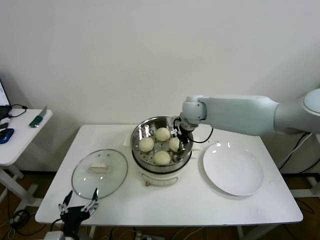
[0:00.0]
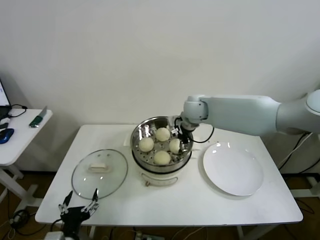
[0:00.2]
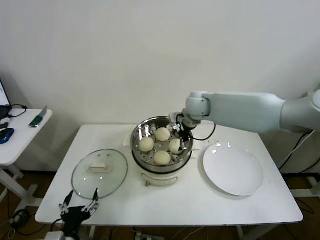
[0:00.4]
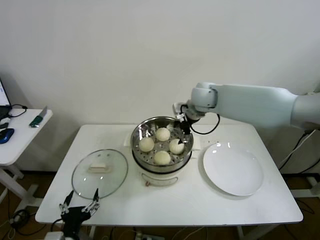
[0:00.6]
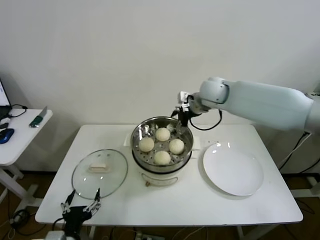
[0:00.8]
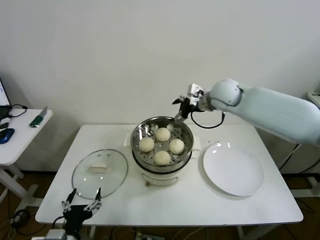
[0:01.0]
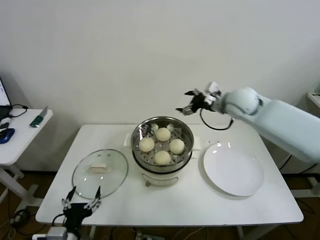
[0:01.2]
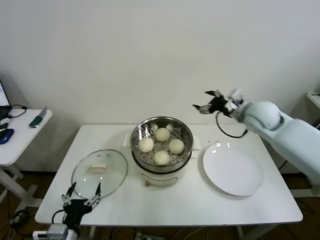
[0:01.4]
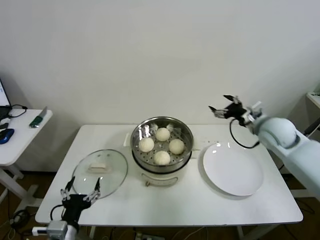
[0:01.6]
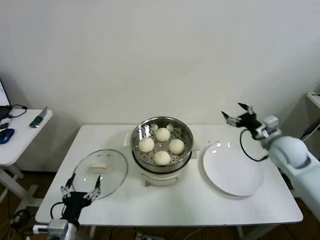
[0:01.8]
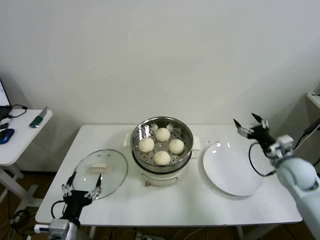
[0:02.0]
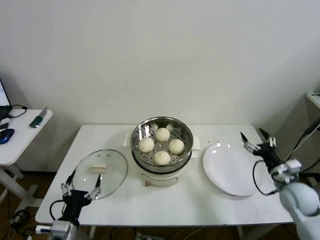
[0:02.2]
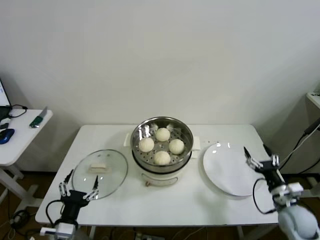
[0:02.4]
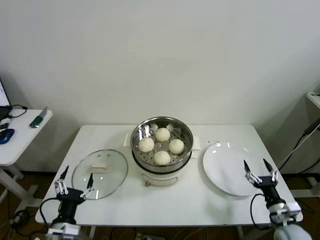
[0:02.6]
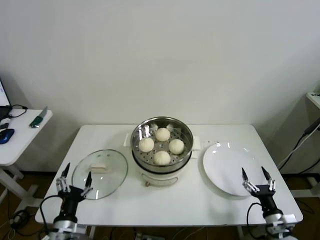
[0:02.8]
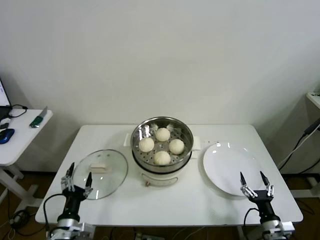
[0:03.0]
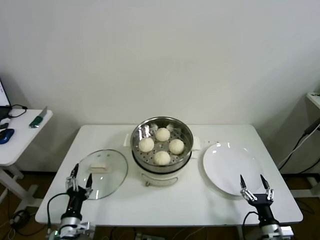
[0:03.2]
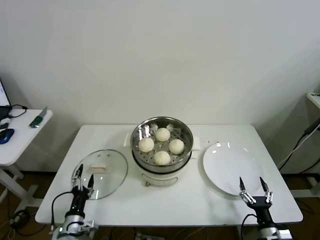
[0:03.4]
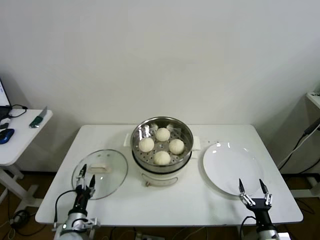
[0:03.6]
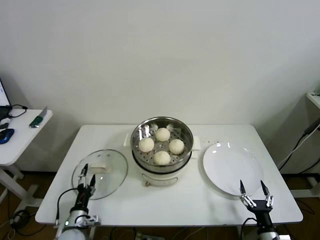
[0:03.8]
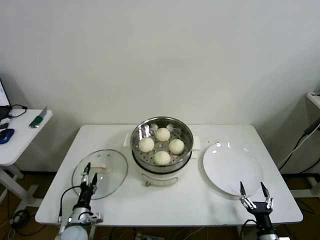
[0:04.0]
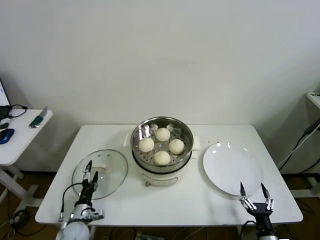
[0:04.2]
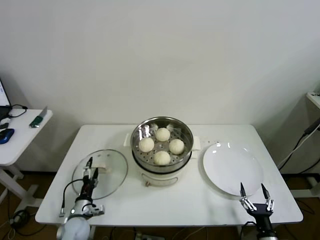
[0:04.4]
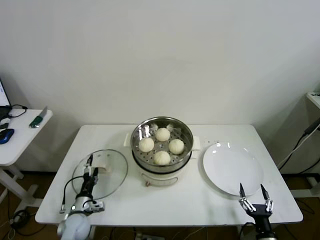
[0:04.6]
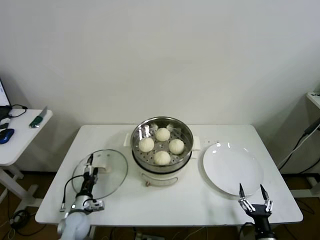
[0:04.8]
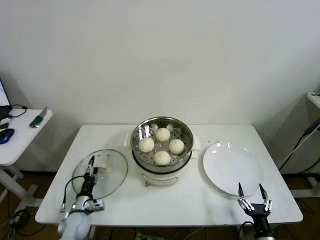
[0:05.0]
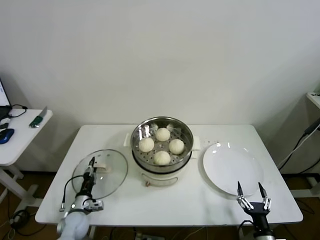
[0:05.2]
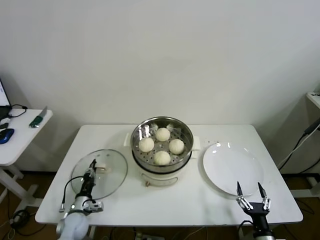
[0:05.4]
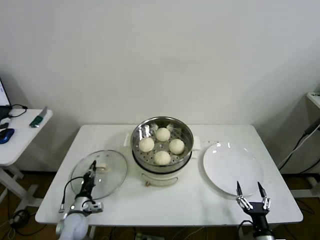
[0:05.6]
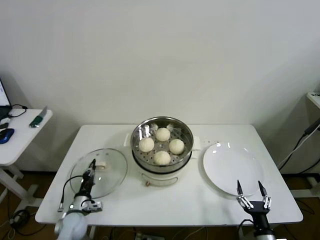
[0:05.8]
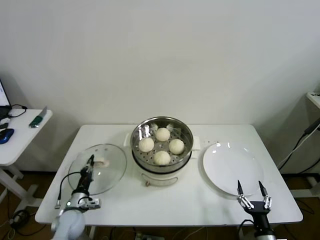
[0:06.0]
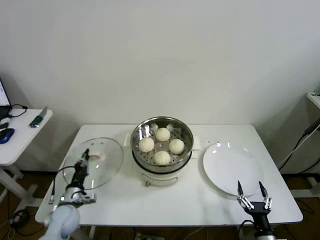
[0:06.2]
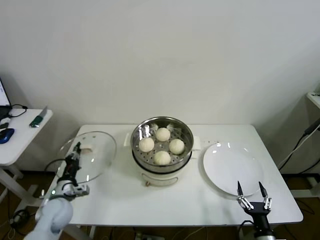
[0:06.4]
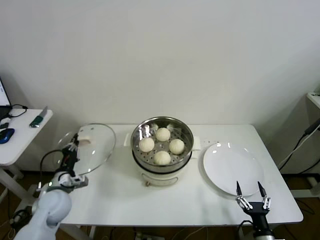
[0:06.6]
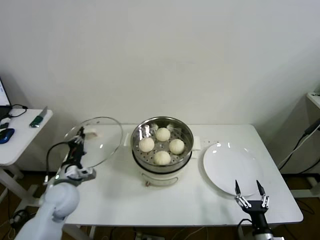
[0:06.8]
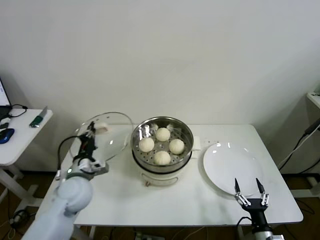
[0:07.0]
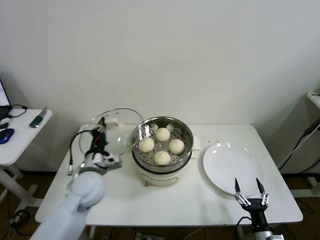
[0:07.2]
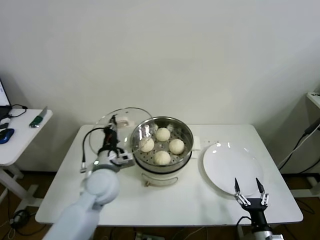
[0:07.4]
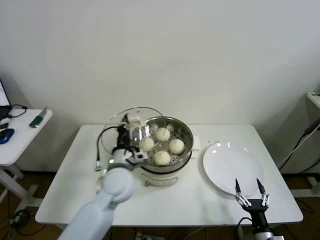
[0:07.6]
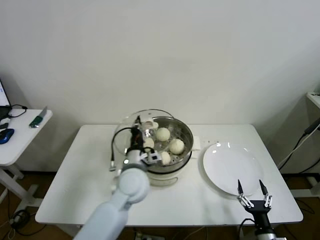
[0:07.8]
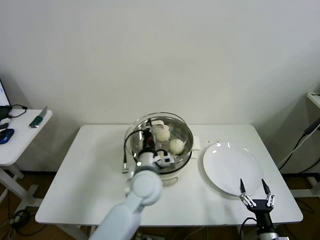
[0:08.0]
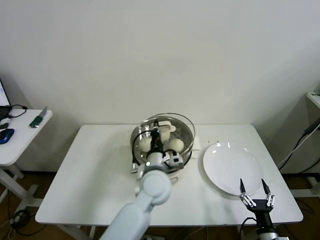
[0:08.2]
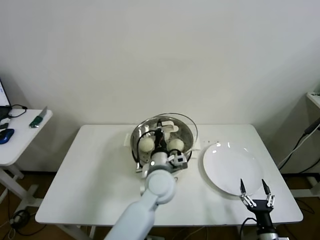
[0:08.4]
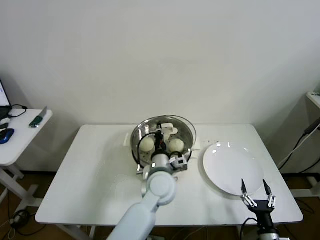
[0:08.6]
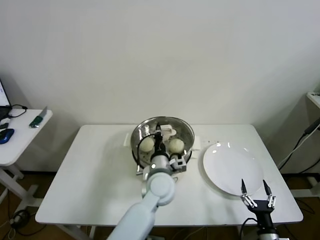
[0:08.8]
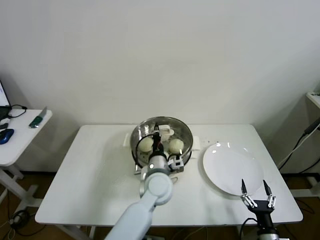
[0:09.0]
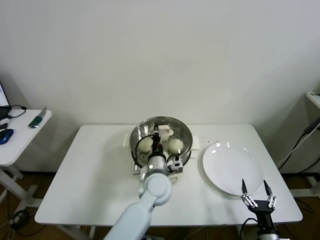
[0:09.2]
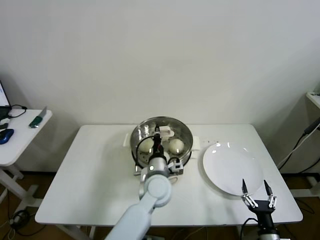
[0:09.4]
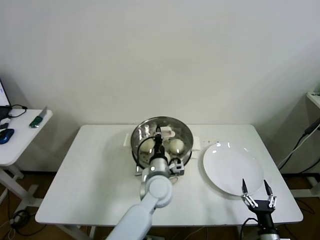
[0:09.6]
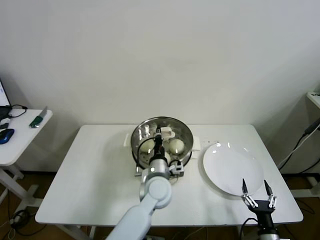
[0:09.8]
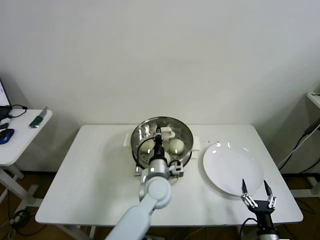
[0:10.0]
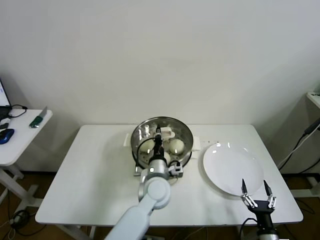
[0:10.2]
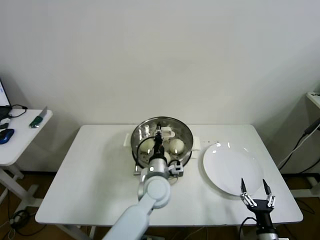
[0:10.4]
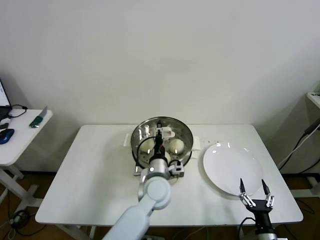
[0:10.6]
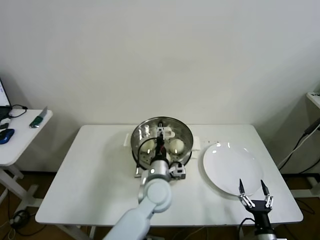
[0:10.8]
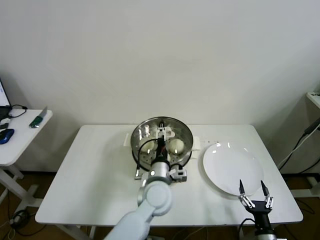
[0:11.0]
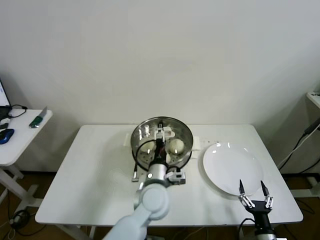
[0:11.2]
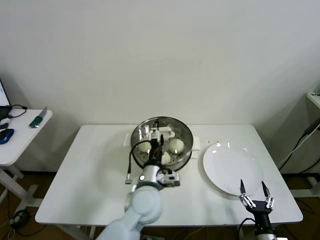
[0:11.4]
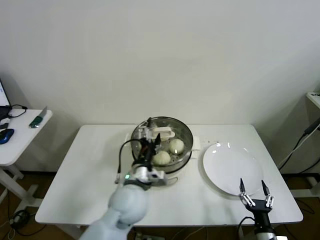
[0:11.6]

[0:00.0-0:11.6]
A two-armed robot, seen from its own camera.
Step, 0:00.4 to 0:05.4: Grasp the pot lid with left gripper.
Step, 0:05.6 to 0:10.4: Place the pot lid on the steamer with left gripper.
0:00.0 to 0:01.4: The right gripper is displaced to the right by about 20 cm, and opens.
0:01.4 to 0:02.8: The left gripper ends up roughly 5 cm from where it was; the right gripper travels downward and backward by about 40 cm.
0:02.8 to 0:04.4: The right gripper goes roughly 5 cm backward. The left gripper travels downward and forward by roughly 15 cm.
0:04.4 to 0:05.8: The left gripper closes up.
0:05.8 to 0:07.2: The left gripper goes approximately 25 cm upward and to the right.
0:07.2 to 0:08.8: The left gripper heads to the right, covering roughly 20 cm.
0:08.8 to 0:10.2: There are only small adjustments of the grippers.
0:10.2 to 0:11.6: The left gripper moves upward, to the left and backward, about 10 cm, and opens.

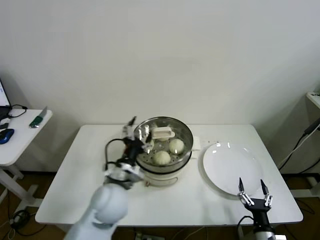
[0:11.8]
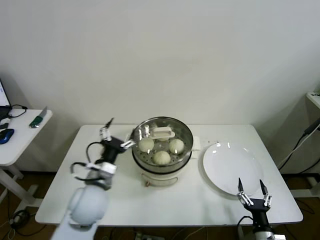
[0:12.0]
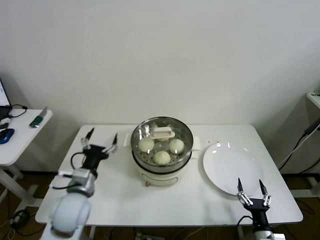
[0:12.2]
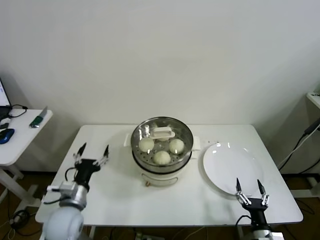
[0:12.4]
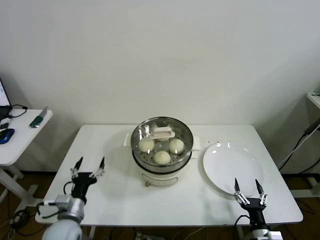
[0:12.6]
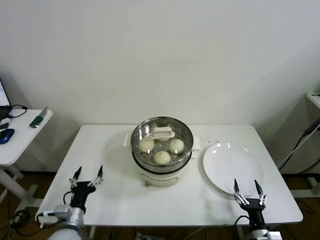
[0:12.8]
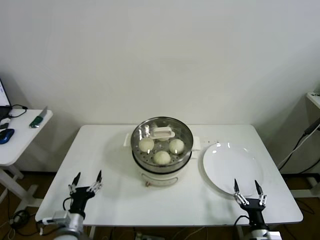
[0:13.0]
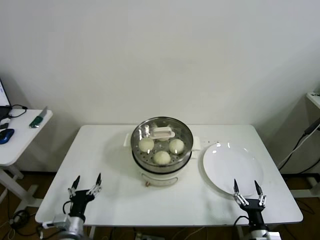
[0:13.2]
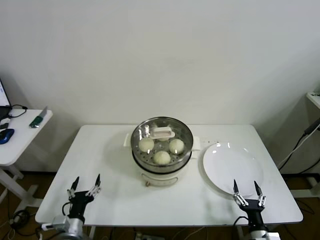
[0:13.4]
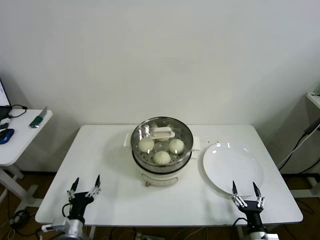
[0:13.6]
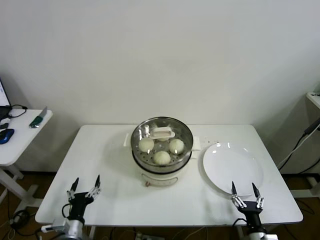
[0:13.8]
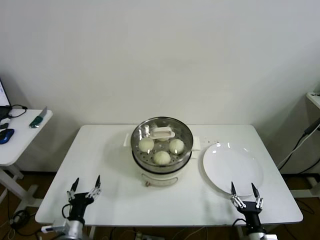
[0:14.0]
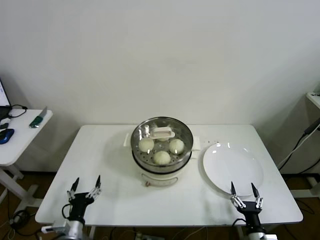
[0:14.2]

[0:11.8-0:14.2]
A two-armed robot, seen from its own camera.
0:11.8 to 0:13.0: The left gripper is displaced to the left, downward and backward by approximately 25 cm.
0:13.0 to 0:14.2: There are only small adjustments of the grippers.

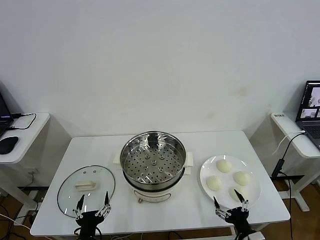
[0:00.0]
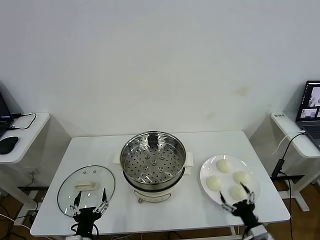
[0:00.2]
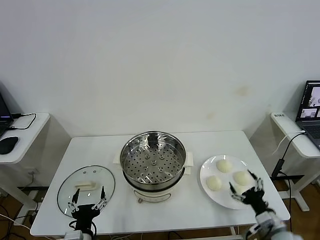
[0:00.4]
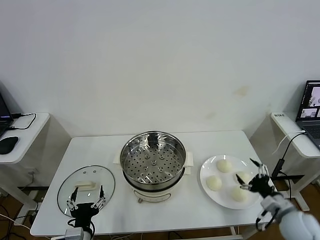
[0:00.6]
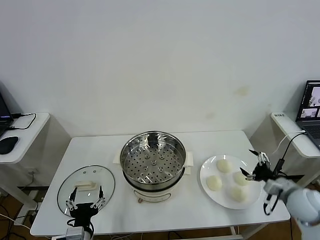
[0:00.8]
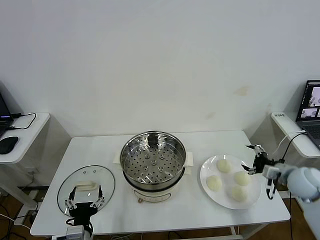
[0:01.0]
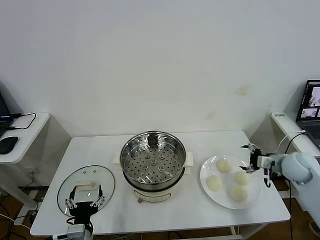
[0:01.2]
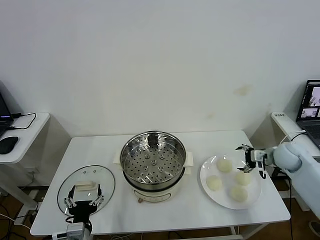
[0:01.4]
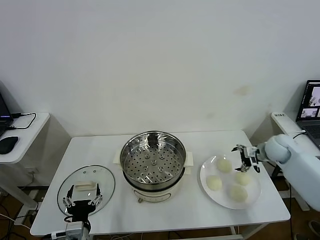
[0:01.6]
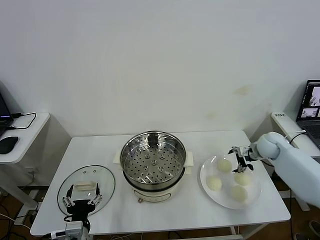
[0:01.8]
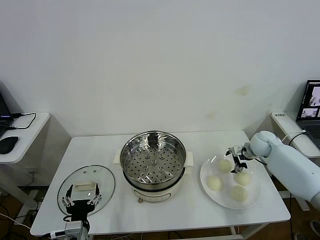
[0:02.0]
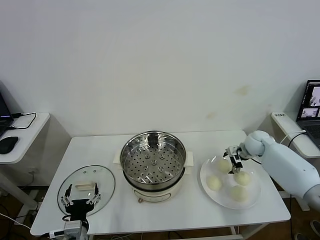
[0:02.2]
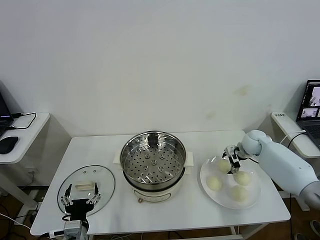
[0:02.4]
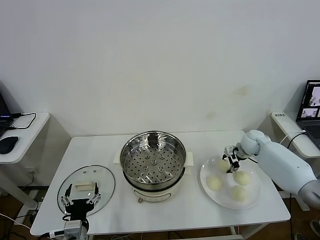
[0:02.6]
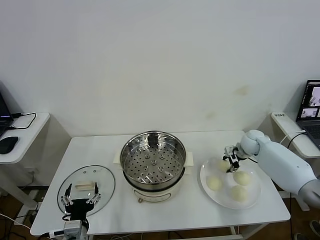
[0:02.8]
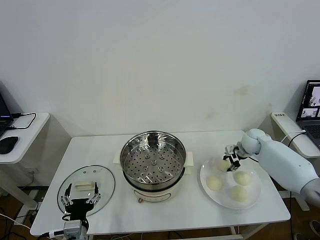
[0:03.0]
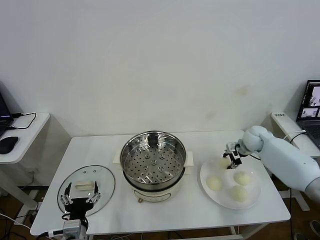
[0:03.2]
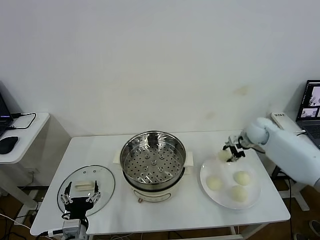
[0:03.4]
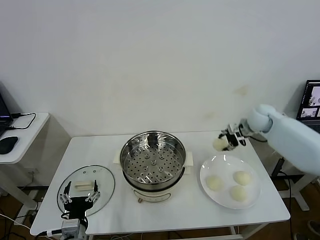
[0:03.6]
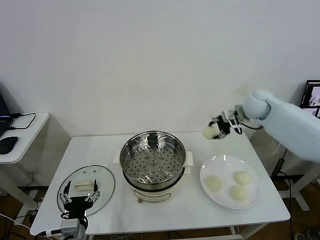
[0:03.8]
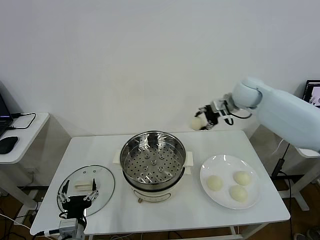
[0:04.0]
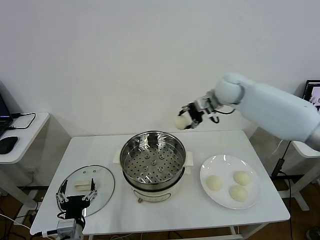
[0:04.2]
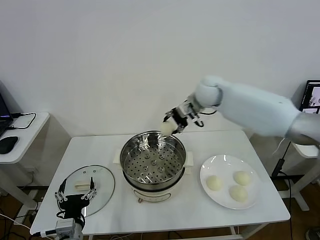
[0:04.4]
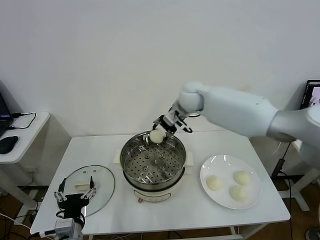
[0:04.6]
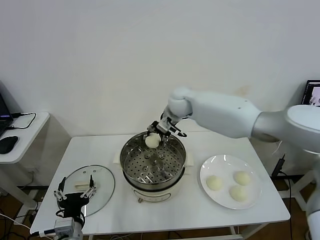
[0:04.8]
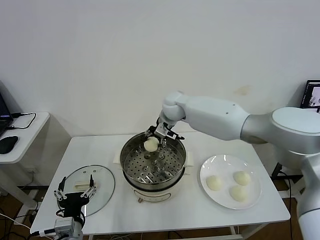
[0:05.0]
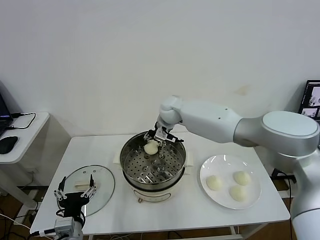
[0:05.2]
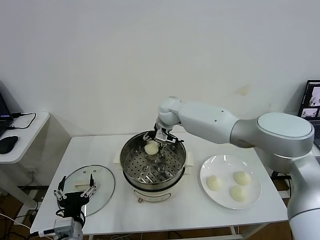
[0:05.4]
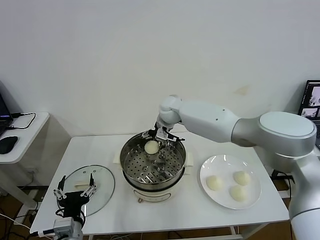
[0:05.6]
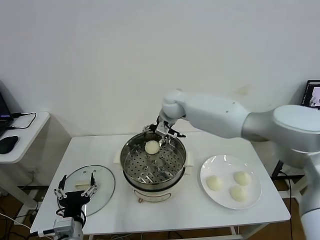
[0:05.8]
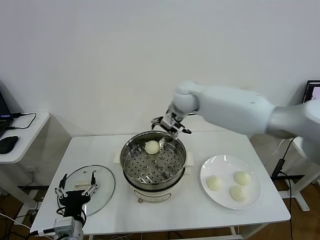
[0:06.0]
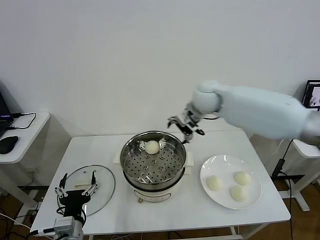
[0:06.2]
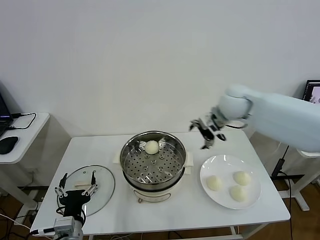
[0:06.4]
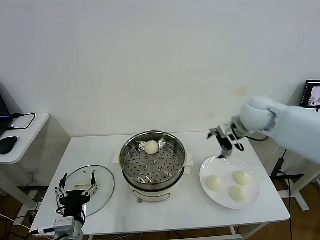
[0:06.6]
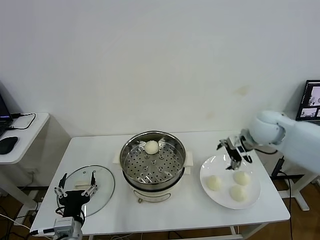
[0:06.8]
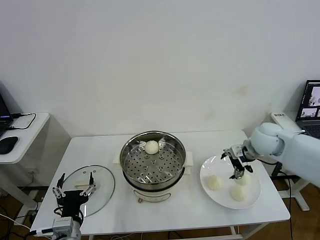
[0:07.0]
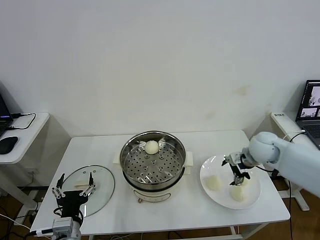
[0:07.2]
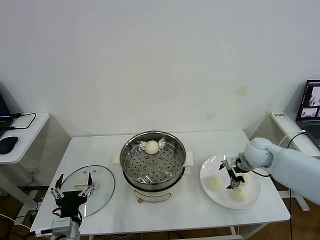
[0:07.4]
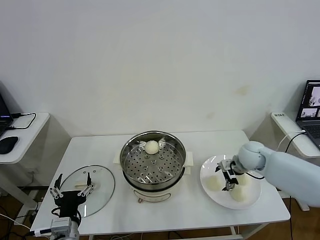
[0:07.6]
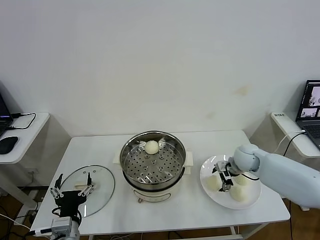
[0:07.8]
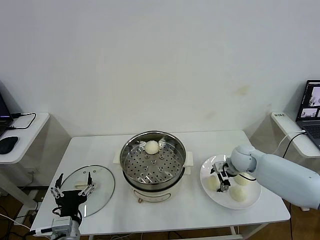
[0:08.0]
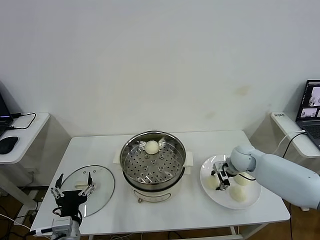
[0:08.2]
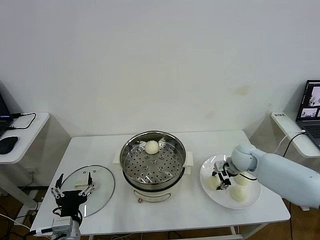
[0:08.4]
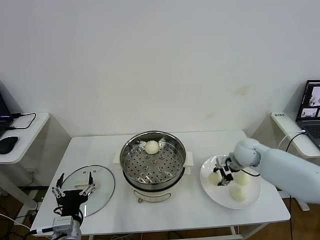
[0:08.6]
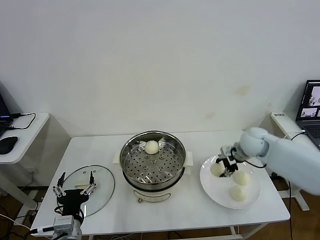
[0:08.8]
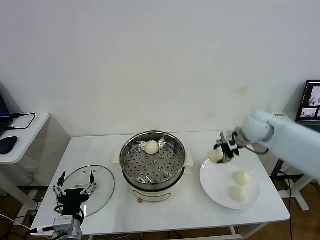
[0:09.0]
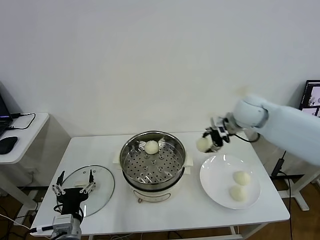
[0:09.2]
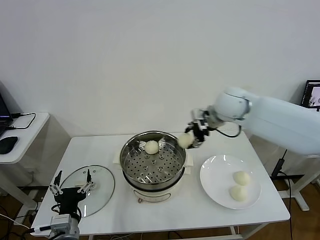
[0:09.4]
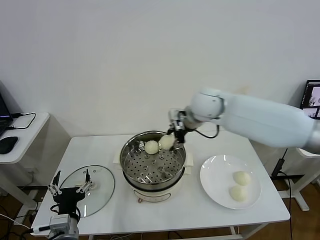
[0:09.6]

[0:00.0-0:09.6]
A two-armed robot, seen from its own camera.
Step, 0:00.0 to 0:02.6: Grasp the baozi in the plate with right gripper.
Step, 0:02.8 to 0:05.4: Place the baozi on the steamer with right gripper.
Step, 0:05.6 to 0:08.2: Grasp the baozi in the plate with right gripper.
0:01.6 to 0:03.2: The right gripper changes place by roughly 5 cm, and closes its fingers.
0:03.2 to 0:04.8: The right gripper shifts some 30 cm to the left.
0:04.8 to 0:06.4: The right gripper moves to the right and backward, about 20 cm, and opens up.
0:06.4 to 0:08.0: The right gripper heads downward, covering roughly 20 cm, and closes up.
0:08.0 to 0:09.6: The right gripper moves upward and to the left, some 30 cm, and closes.
